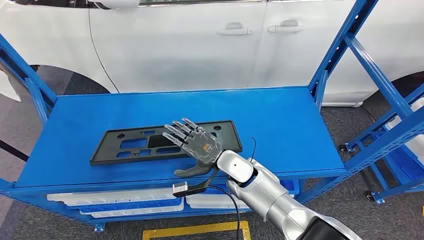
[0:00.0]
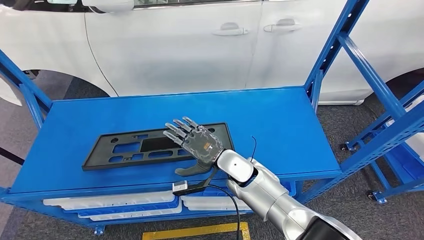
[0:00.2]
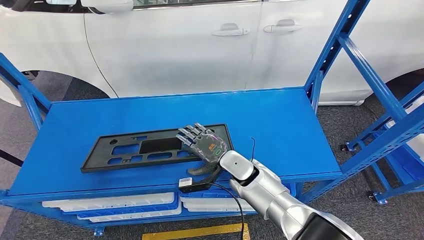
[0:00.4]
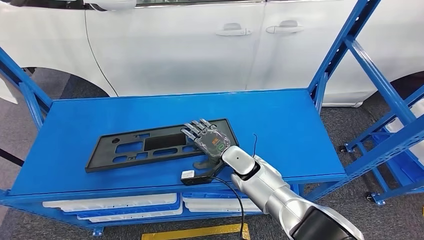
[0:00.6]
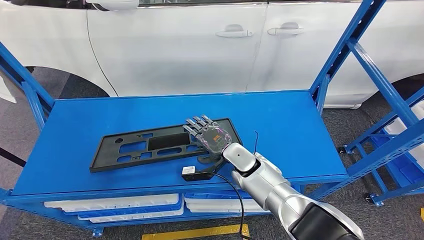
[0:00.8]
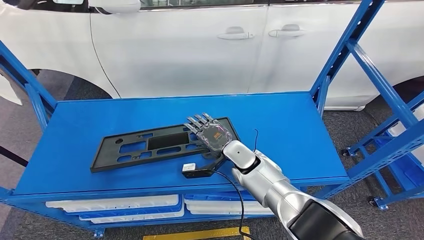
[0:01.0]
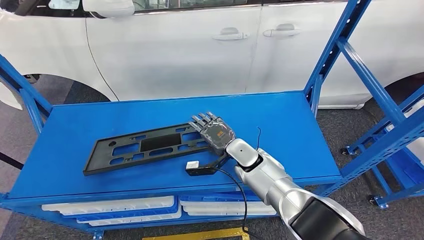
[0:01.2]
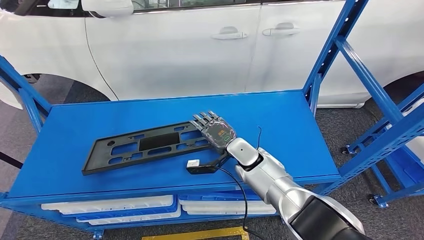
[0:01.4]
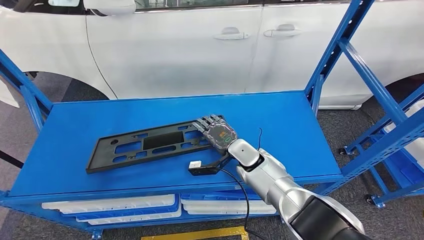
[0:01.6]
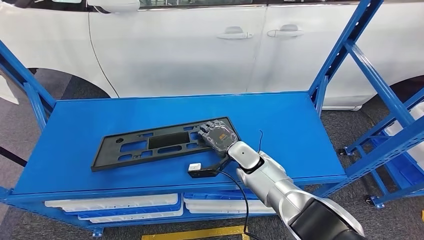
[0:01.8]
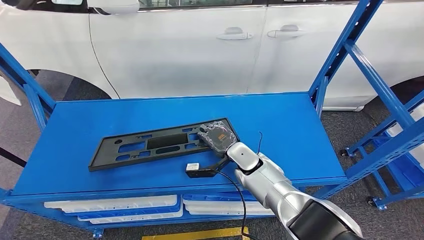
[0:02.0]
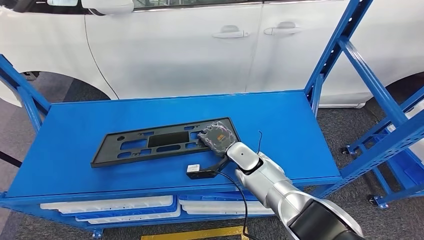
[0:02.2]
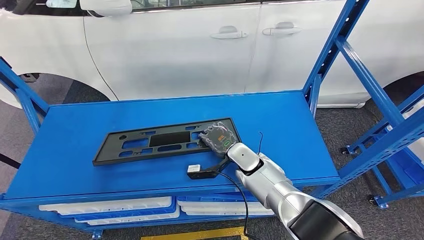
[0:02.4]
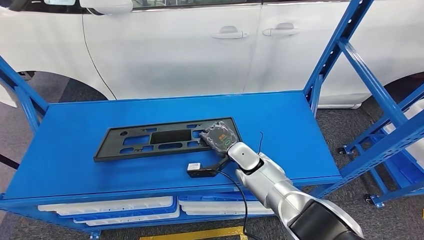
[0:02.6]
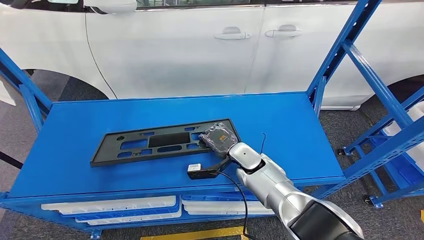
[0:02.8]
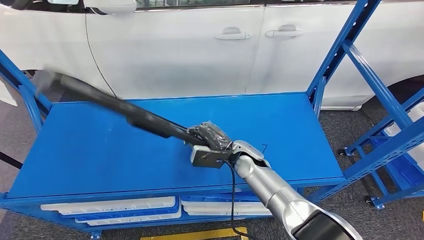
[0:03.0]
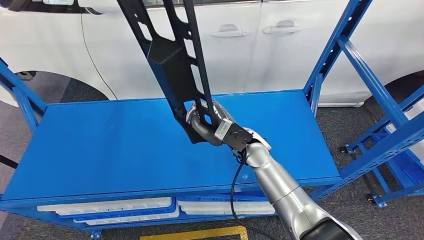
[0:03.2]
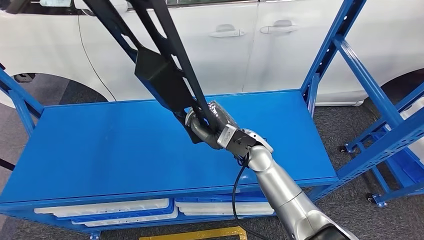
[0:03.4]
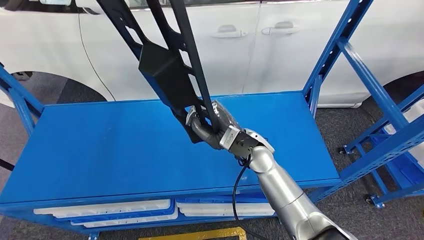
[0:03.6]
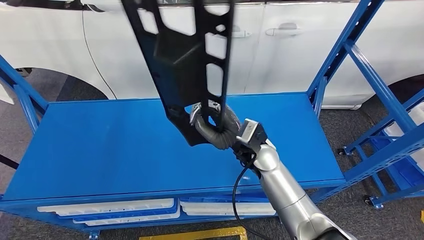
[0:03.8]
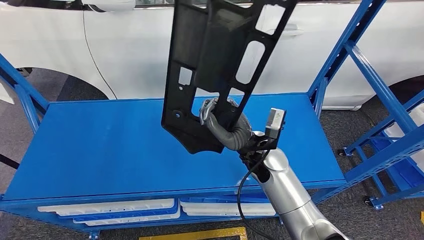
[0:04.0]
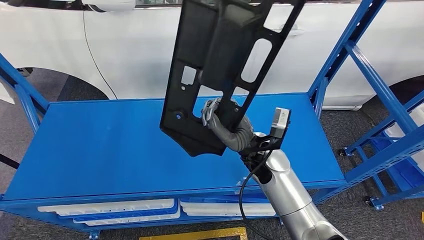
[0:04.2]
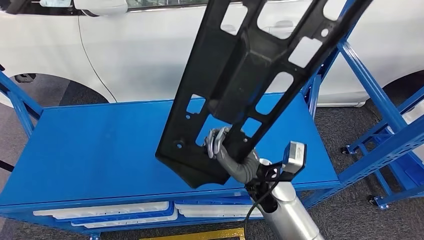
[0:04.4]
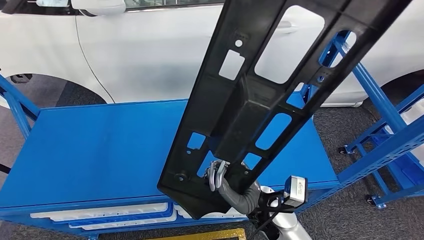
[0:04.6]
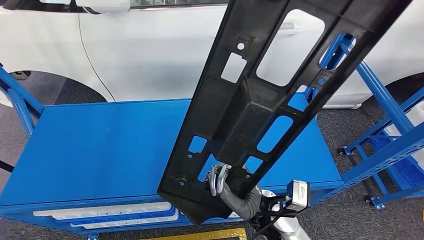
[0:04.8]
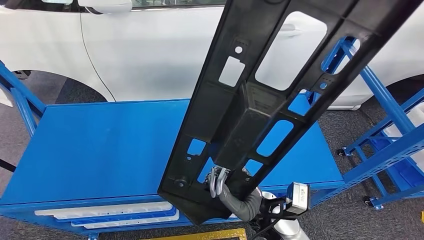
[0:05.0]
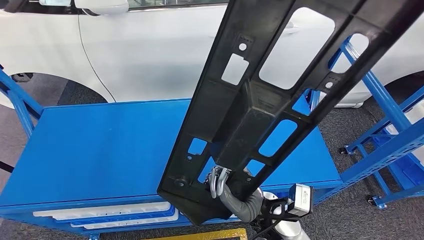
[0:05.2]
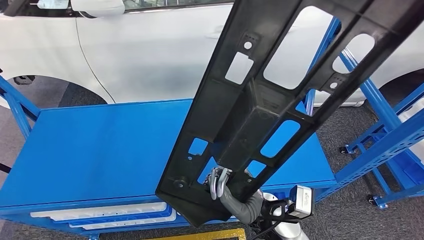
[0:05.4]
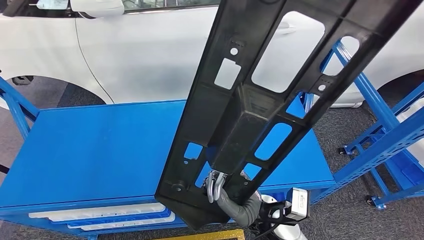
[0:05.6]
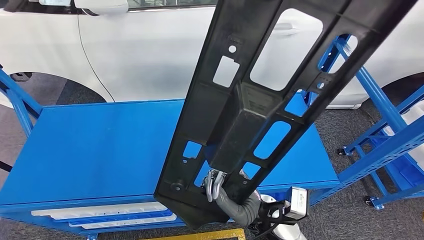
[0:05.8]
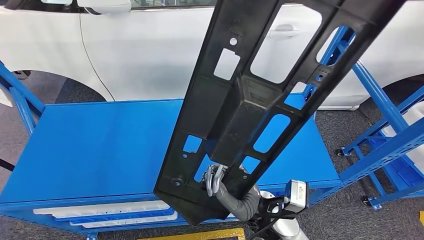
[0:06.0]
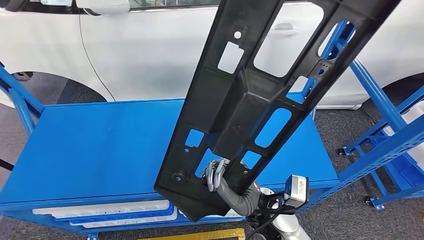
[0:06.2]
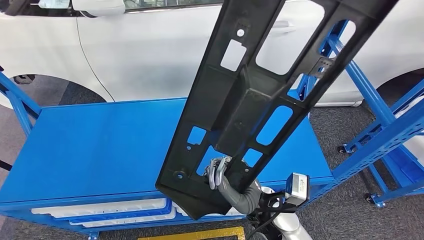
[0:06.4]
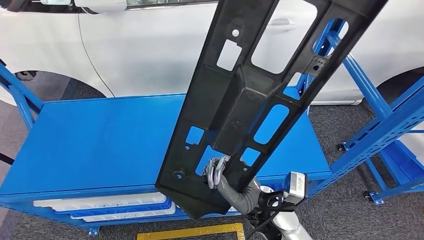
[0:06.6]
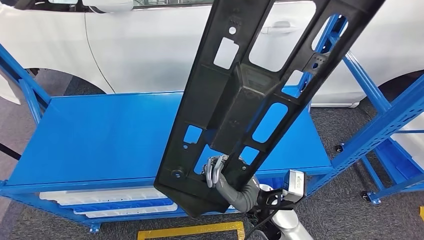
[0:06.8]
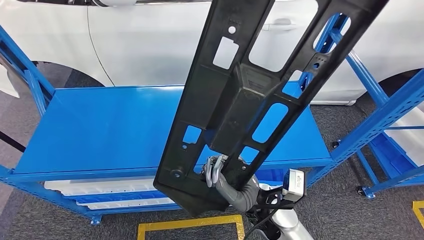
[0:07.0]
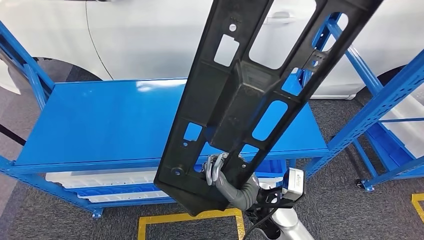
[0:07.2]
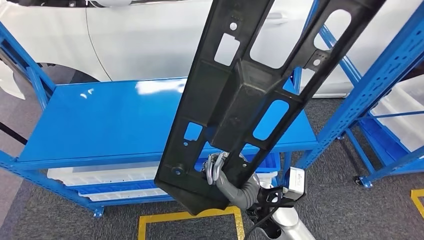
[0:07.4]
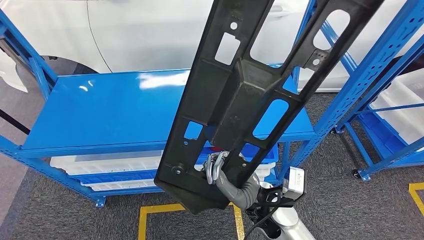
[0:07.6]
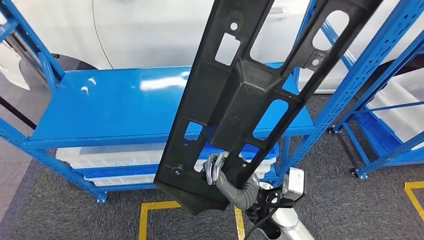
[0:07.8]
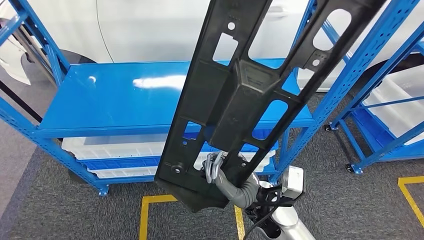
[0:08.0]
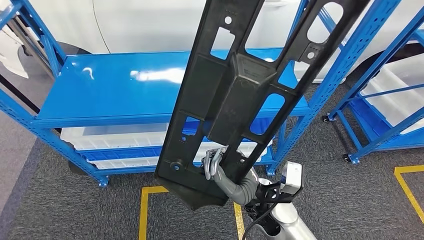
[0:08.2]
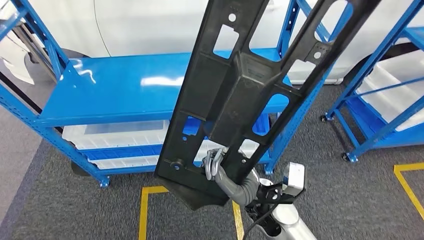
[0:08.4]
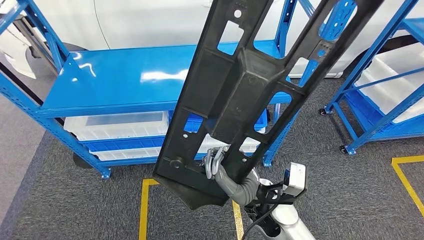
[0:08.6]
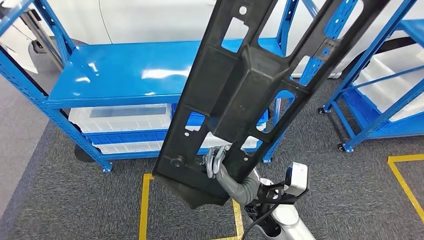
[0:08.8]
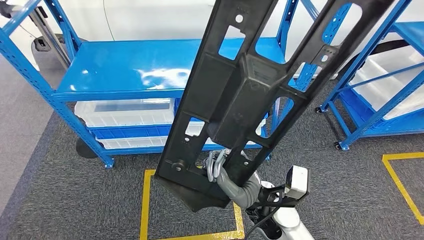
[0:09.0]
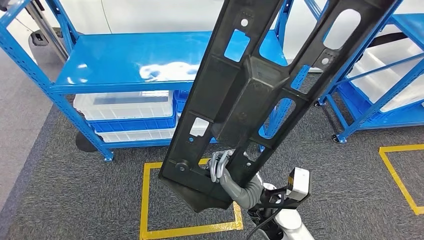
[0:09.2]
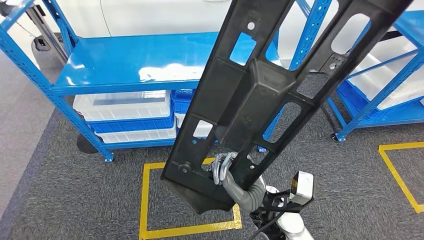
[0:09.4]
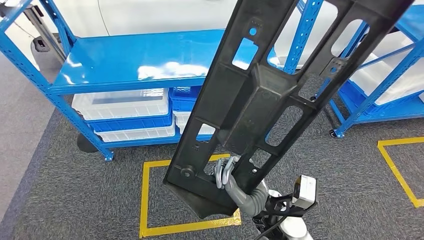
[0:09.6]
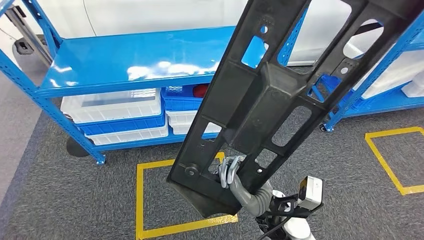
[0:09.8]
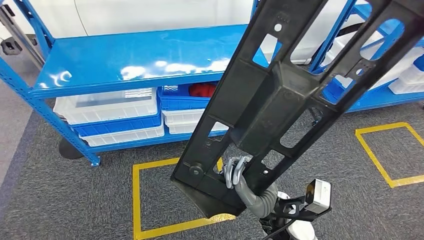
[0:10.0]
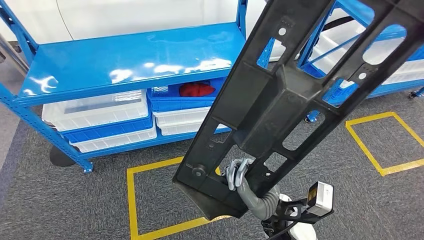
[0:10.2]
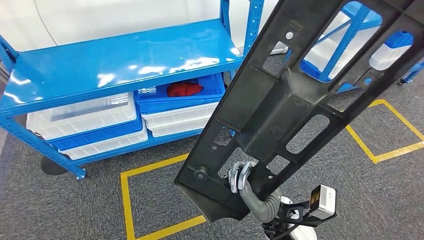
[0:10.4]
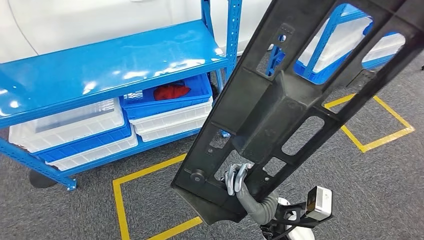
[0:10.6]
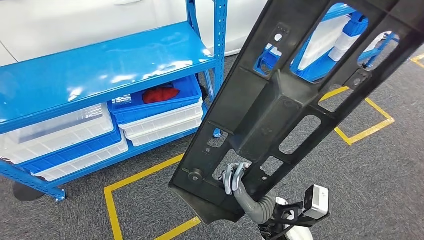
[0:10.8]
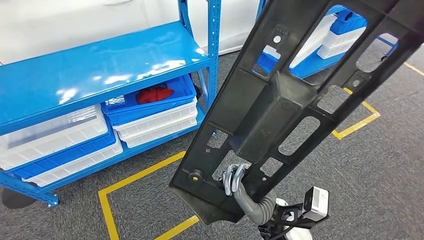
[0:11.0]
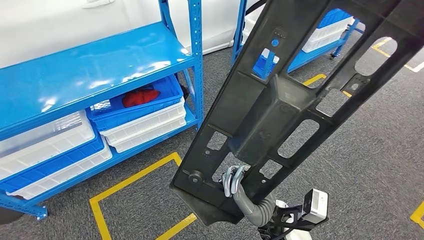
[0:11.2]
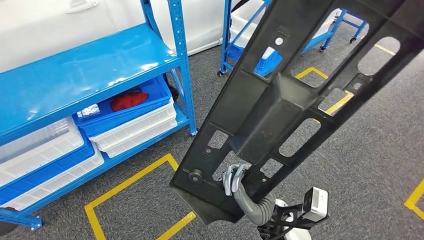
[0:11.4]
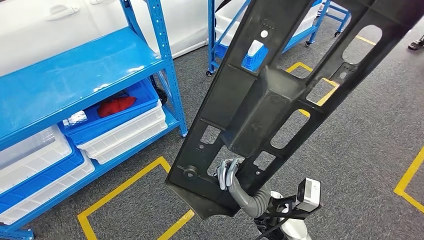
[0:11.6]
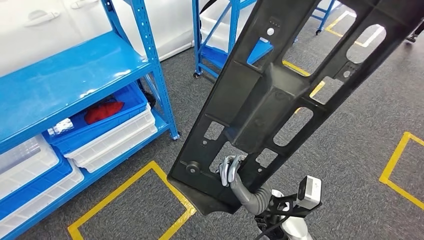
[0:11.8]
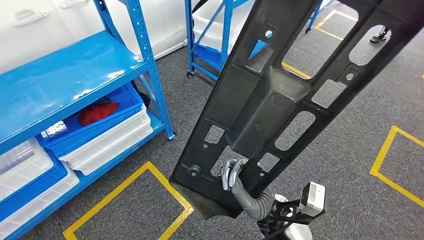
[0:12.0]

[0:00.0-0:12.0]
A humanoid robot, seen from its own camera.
Step, 0:00.0 to 0:04.4: Pick up the large material from the shelf.

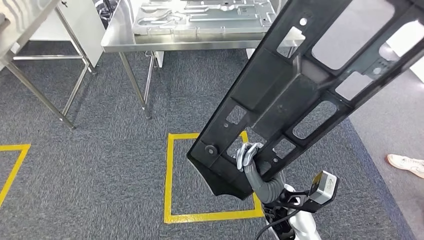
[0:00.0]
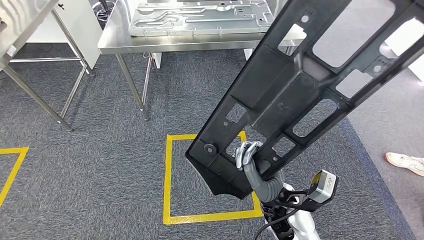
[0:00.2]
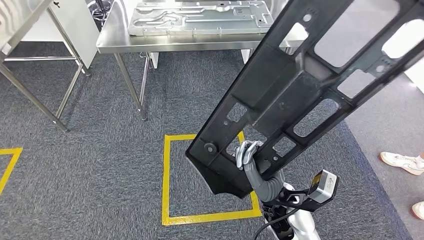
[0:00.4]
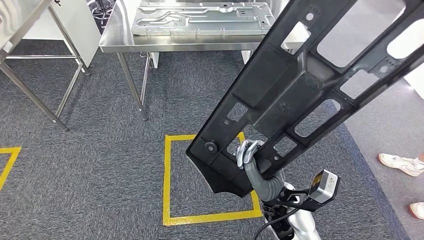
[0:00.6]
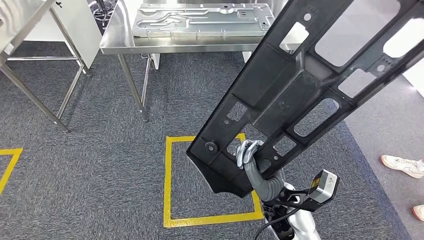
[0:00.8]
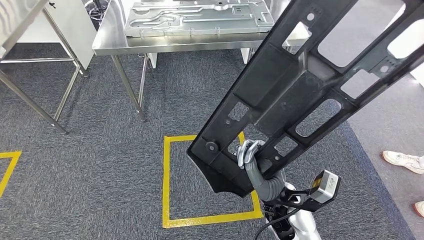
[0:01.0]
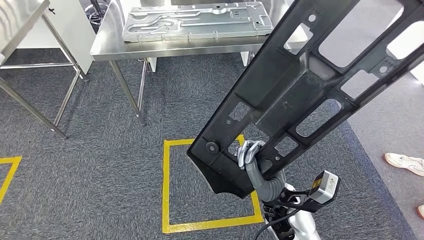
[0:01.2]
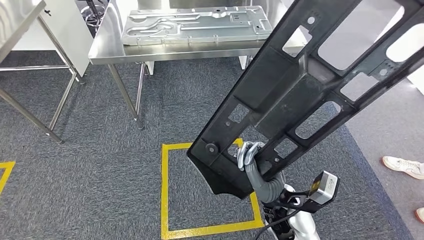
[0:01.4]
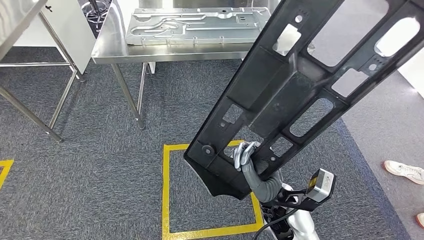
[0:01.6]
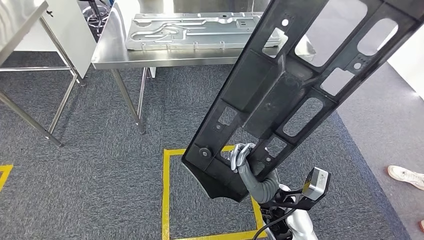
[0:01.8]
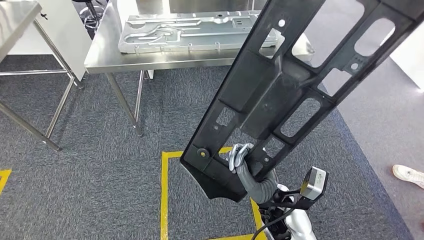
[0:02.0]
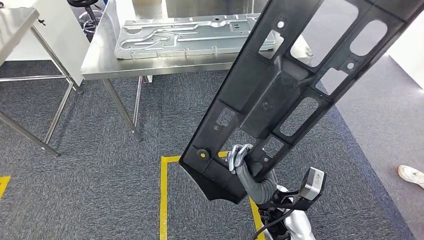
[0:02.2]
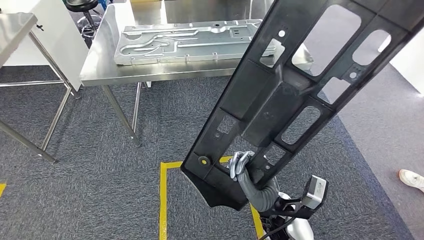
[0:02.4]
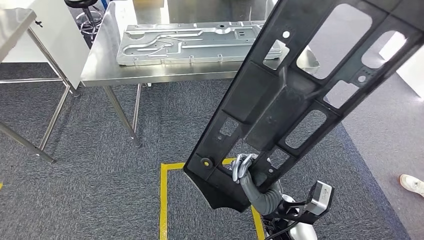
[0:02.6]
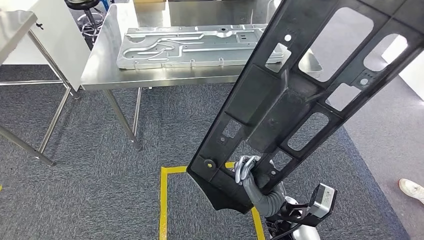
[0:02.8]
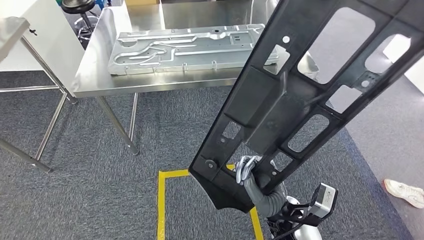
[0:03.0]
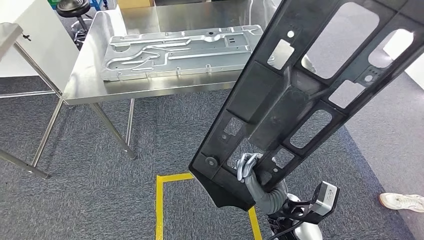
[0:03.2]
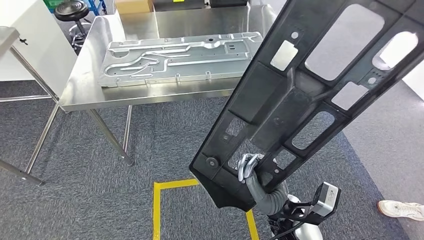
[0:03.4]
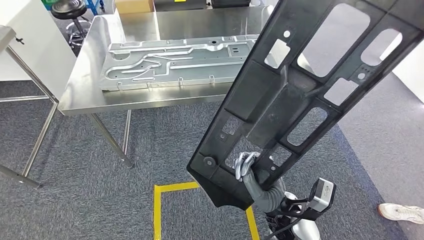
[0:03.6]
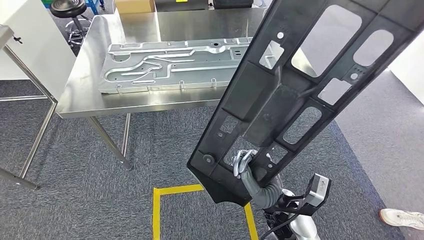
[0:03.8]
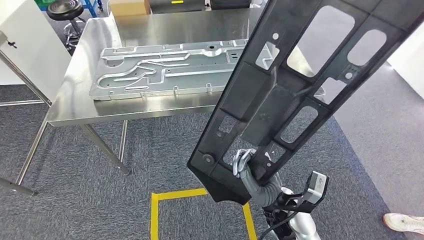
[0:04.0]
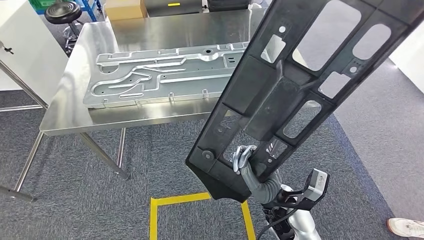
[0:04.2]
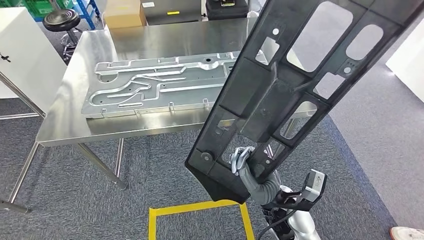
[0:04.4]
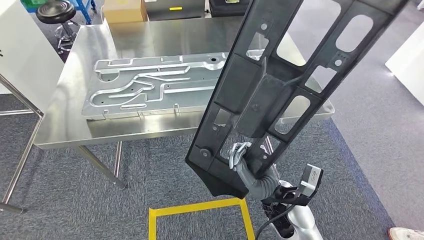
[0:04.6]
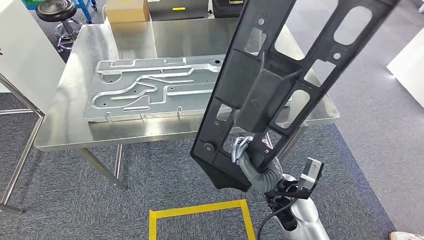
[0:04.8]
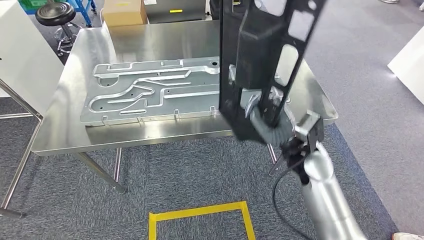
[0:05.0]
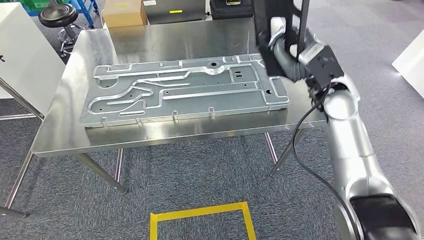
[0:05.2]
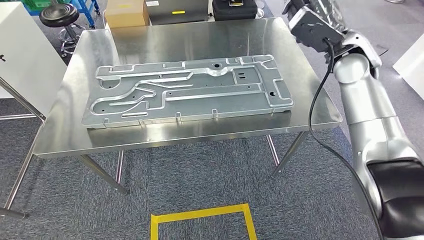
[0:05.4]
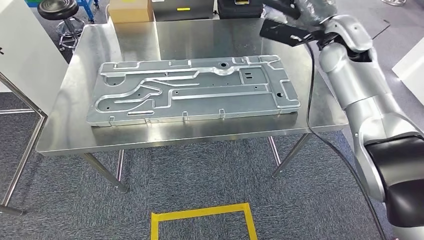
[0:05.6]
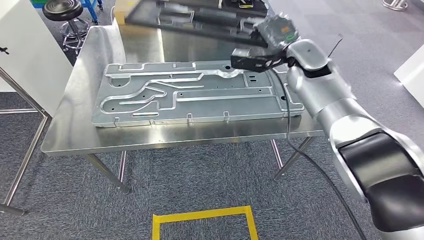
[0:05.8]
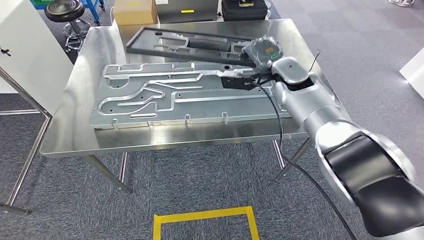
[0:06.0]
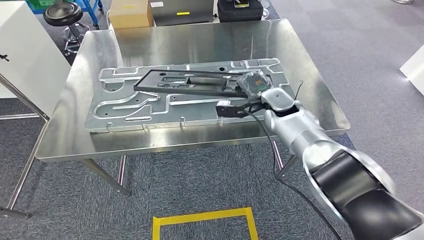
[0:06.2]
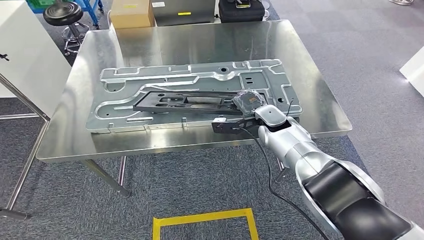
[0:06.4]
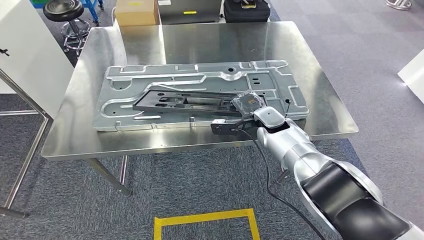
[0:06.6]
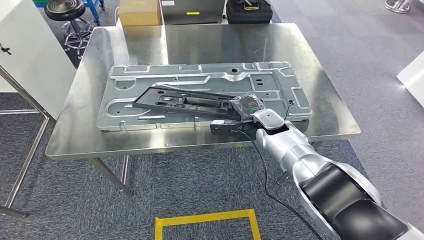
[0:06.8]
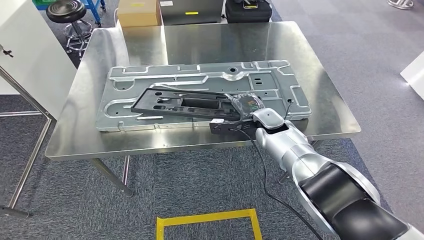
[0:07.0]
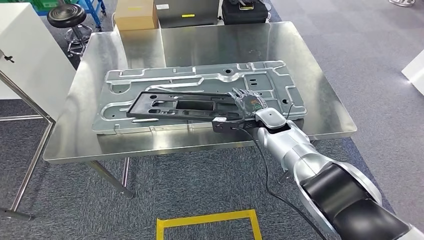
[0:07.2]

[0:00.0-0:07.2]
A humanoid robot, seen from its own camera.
Step, 0:00.0 to 0:04.8: Move the large material to the workbench.
